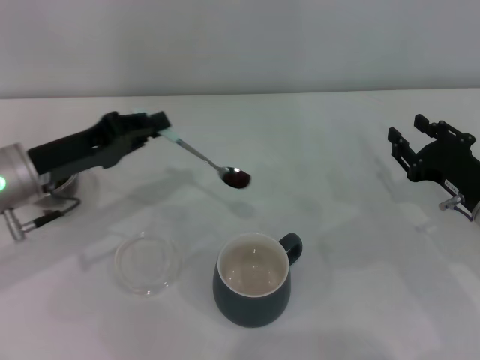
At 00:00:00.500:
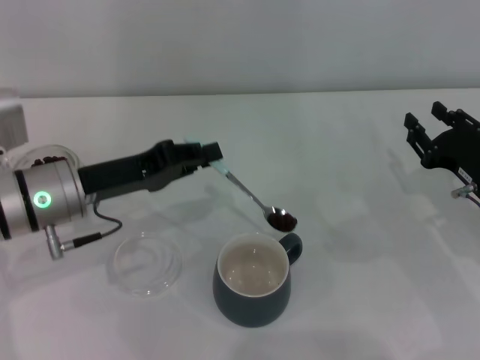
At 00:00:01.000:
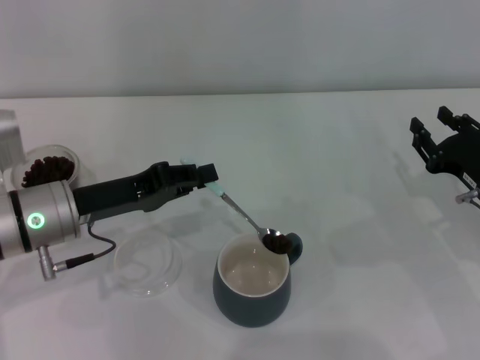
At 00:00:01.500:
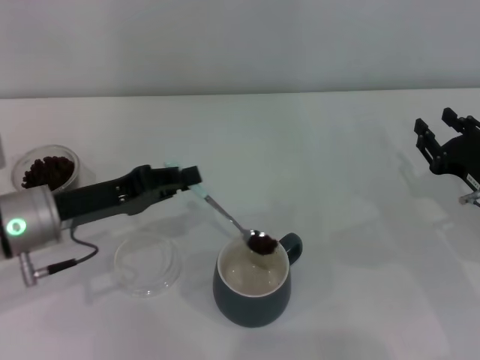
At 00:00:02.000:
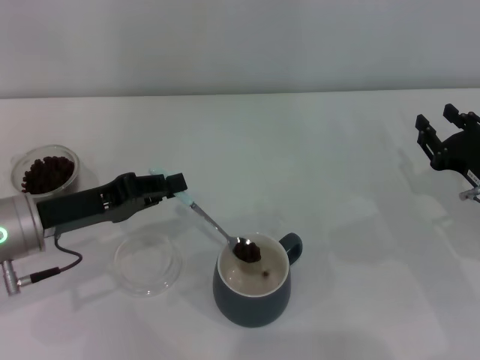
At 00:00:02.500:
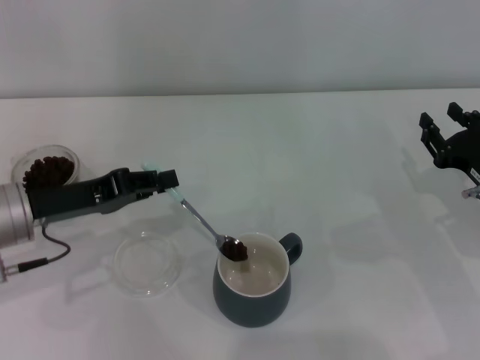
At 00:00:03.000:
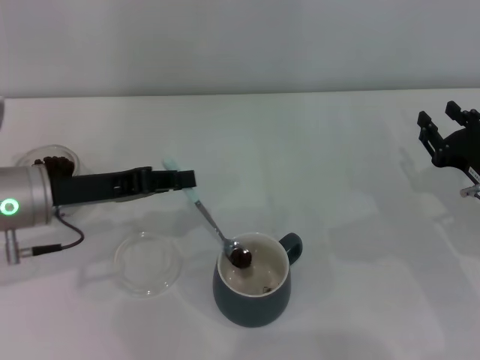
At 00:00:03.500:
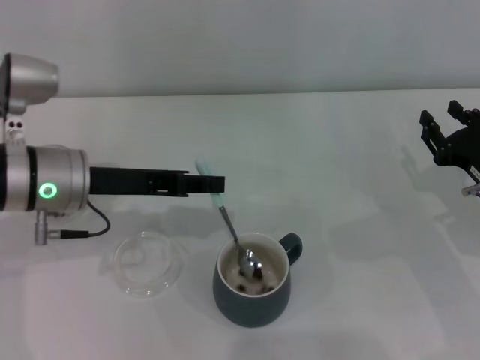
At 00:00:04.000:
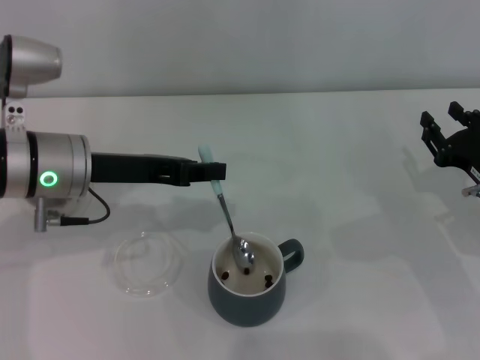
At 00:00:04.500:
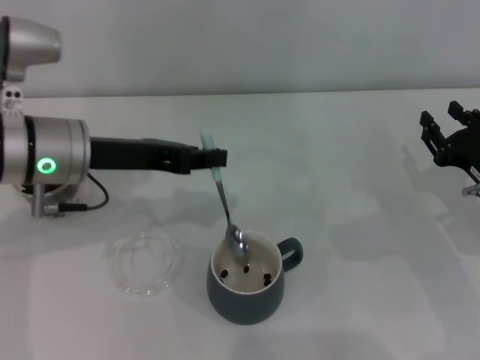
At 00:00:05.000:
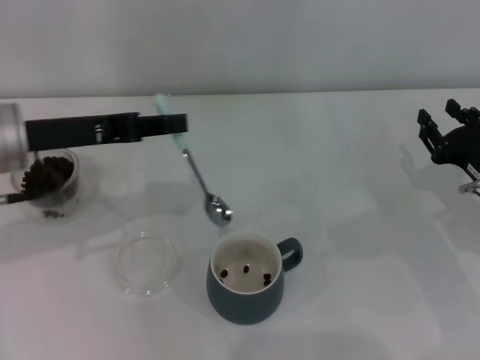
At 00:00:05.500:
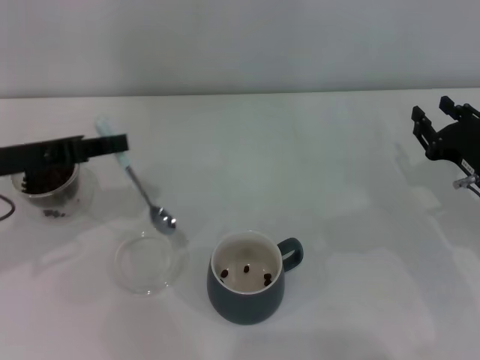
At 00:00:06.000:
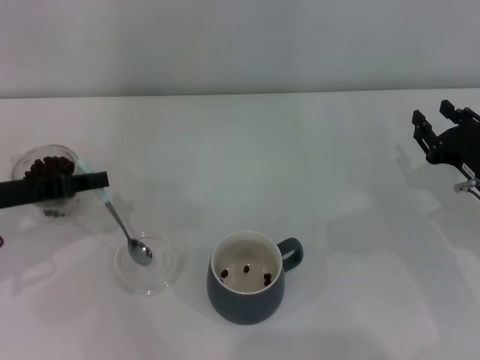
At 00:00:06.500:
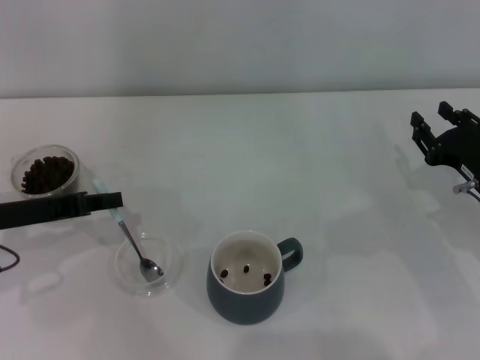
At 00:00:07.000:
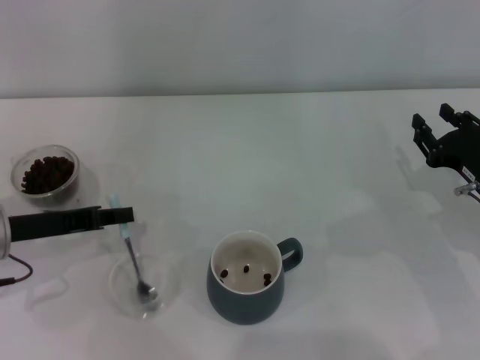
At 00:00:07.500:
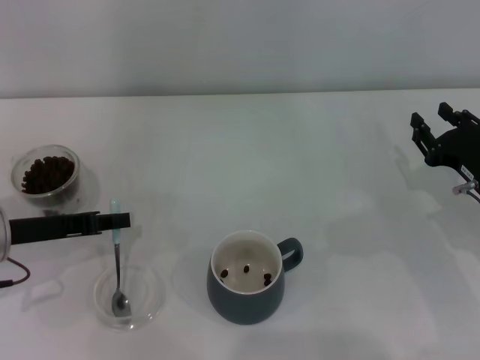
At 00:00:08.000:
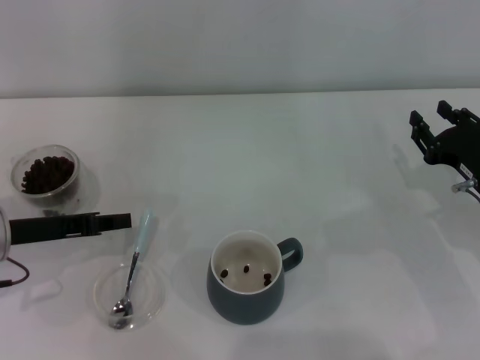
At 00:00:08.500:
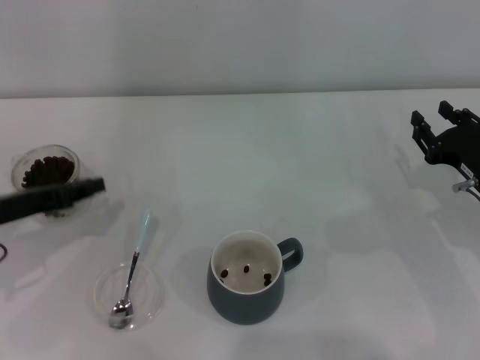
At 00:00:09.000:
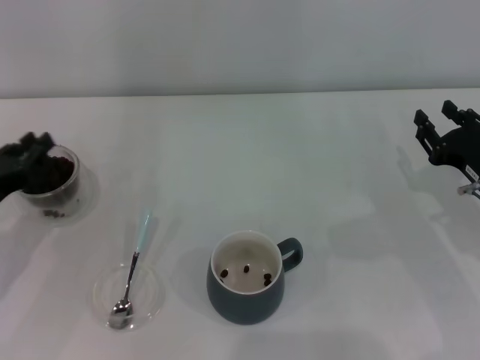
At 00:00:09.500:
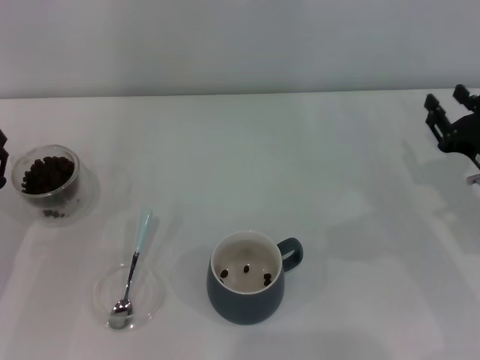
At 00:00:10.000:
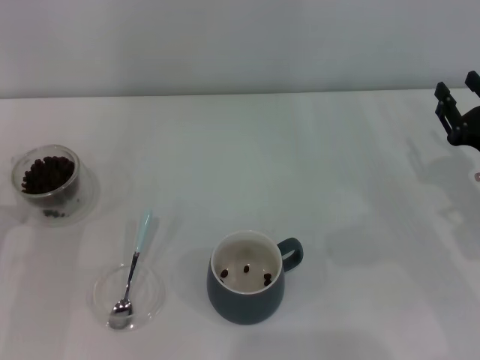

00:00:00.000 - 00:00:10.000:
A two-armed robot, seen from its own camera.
Task of the whole recording: Use a blue spoon to take out the coffee beans from the glass and pour them into the gray cup.
Step, 00:00:00.000 - 00:00:03.500: Scoop a spoonful of beans into the cup with the right gripper.
00:00:00.000 - 00:00:02.000: There are only small adjustments of the grippers.
00:00:02.000 - 00:00:04.000: The left gripper heads upward, covering some 5 cm.
00:00:04.000 - 00:00:06.000: The left gripper travels to the left by some 10 cm.
00:00:06.000 - 00:00:08.000: There are only small adjustments of the grippers.
00:00:08.000 - 00:00:10.000: The left gripper heads backward, covering about 5 cm, and opens its fingers.

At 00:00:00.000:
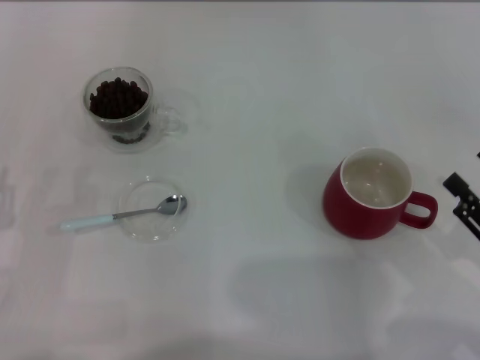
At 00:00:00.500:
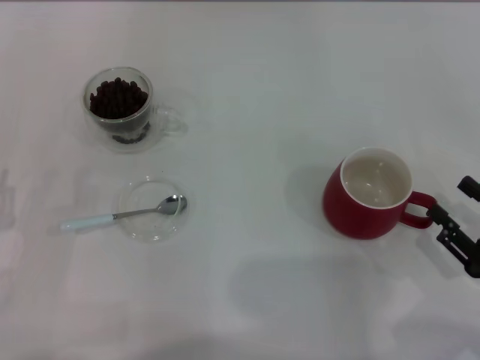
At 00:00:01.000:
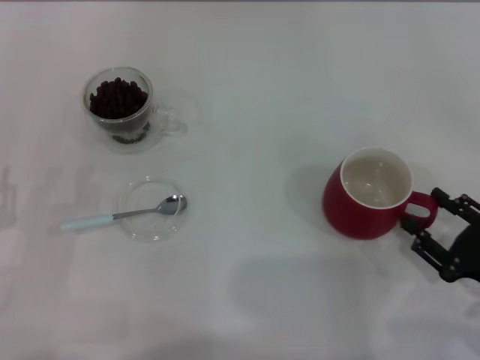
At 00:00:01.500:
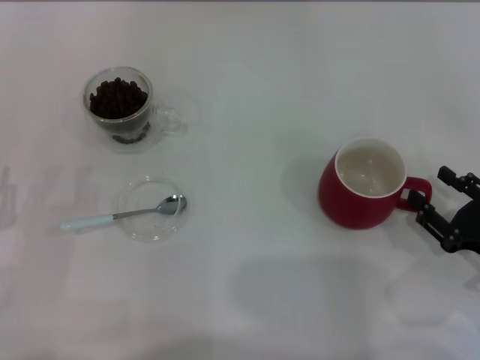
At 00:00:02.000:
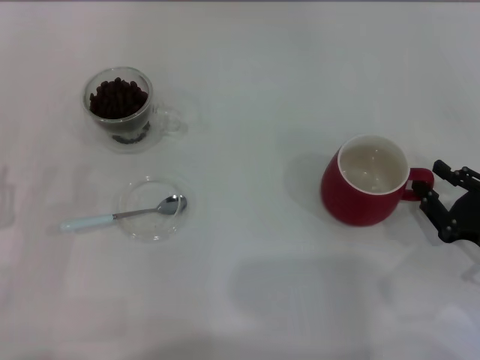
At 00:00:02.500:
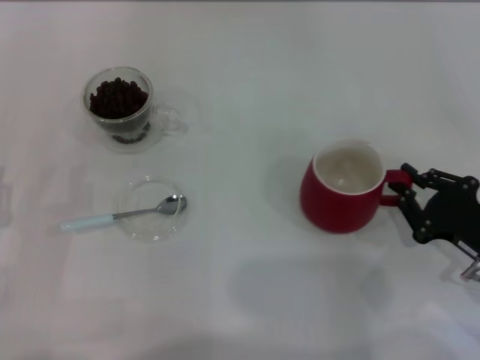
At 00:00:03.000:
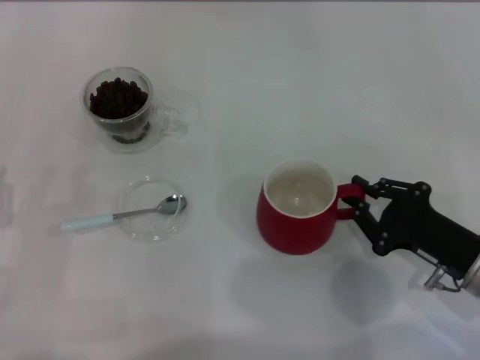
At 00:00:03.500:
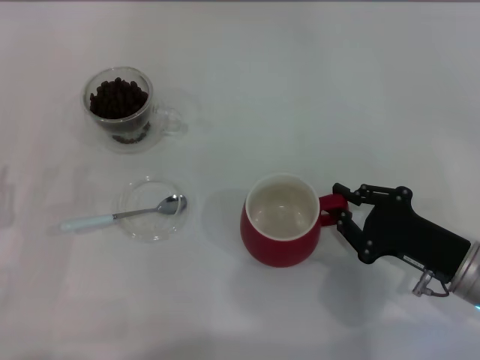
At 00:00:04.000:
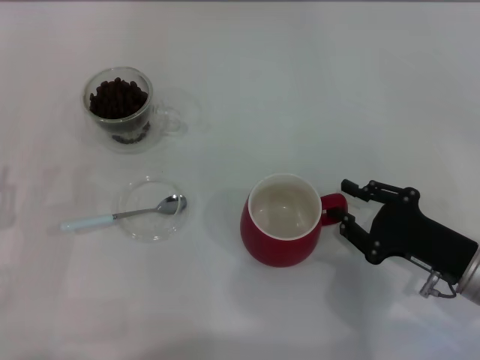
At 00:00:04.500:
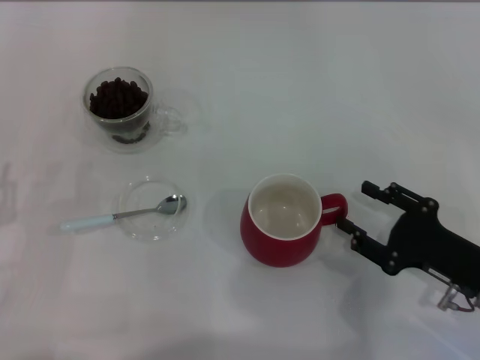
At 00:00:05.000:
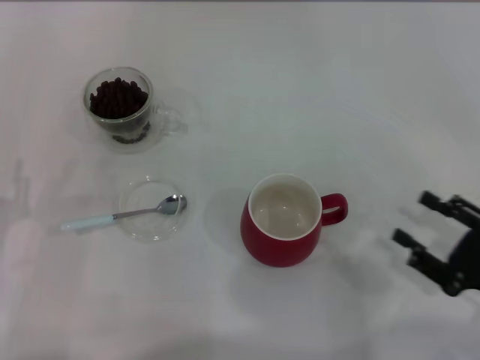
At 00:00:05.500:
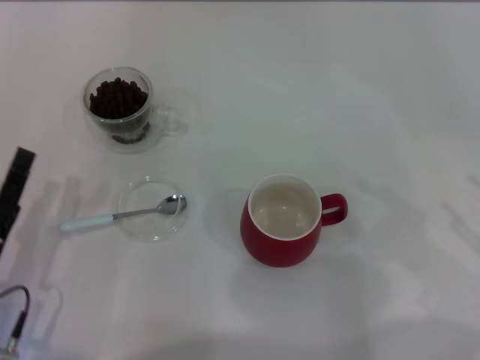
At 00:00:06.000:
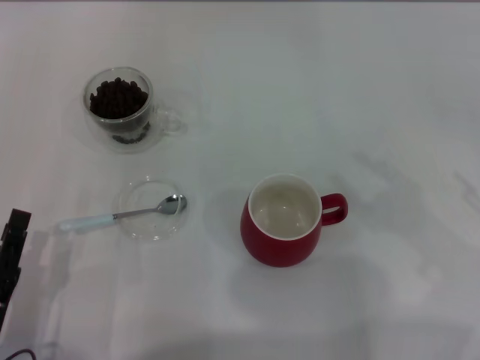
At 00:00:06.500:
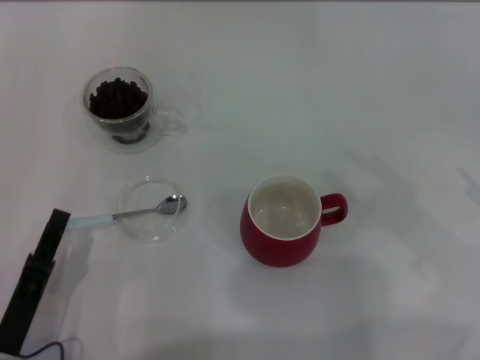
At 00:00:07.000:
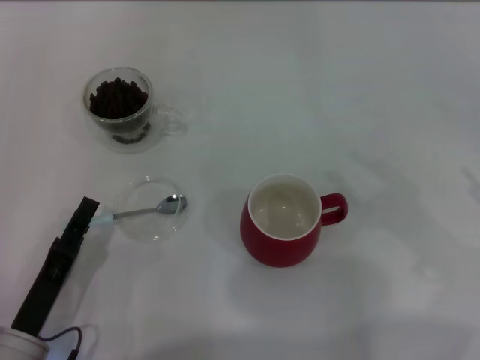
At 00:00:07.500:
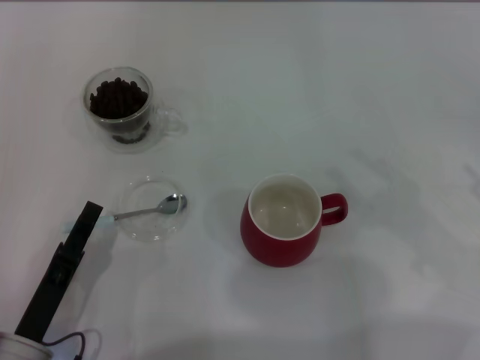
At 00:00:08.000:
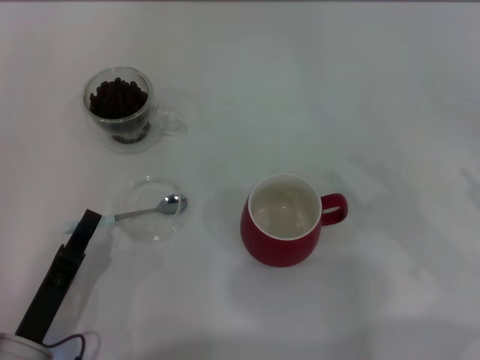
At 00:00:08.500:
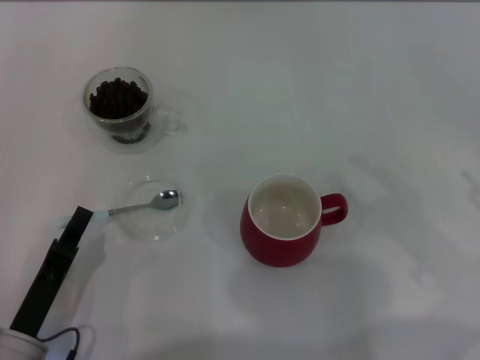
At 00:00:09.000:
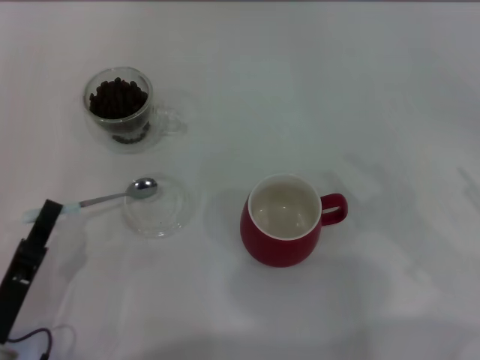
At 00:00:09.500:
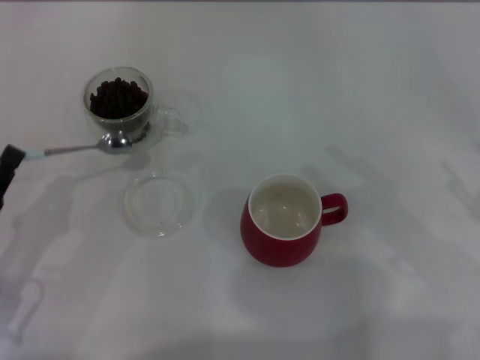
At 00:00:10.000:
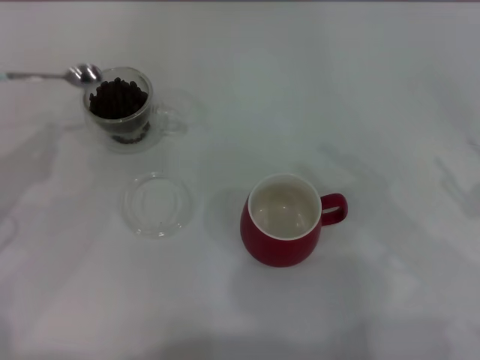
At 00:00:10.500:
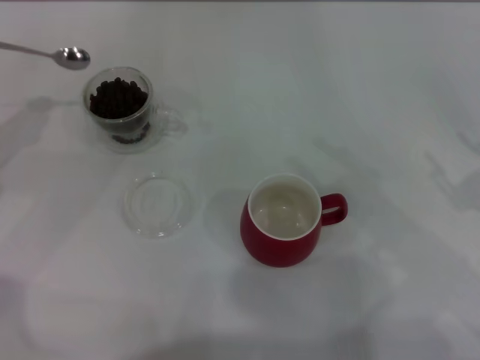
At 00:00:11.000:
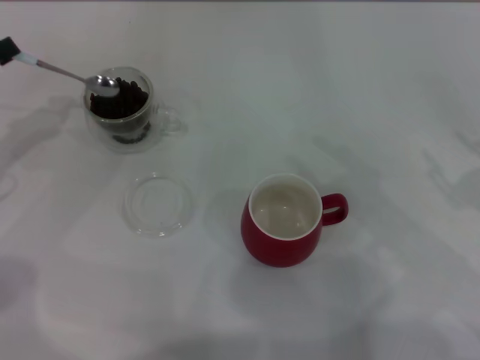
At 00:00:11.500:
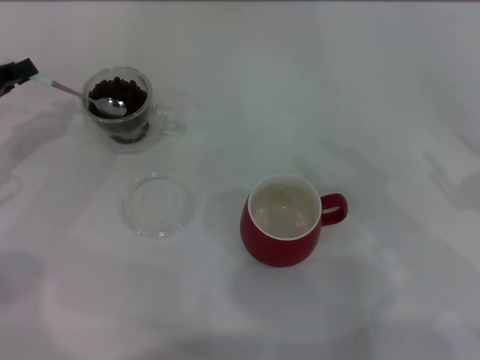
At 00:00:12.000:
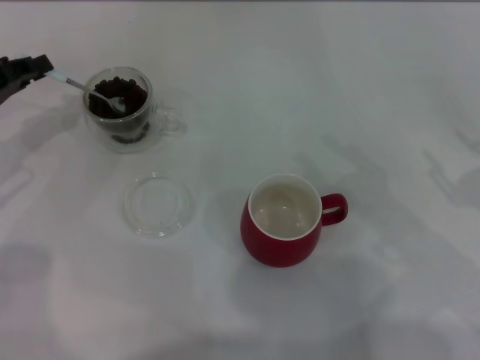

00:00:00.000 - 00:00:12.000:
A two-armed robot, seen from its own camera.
Task of the whole recording: Use a blue spoon to take out the coffee beans from the glass and pour them into the red cup.
Step, 00:00:05.000 - 00:00:09.000: Pick up the spoon with the right gripper.
00:00:00.000 - 00:00:02.000: The right gripper moves some 5 cm.
00:00:02.000 - 00:00:04.000: The right gripper shifts about 5 cm to the left, and closes.
00:00:04.000 - 00:00:06.000: The right gripper shifts approximately 15 cm to the right and upward, and opens its fingers. The left gripper travels backward and to the right by roughly 10 cm.
00:00:06.000 - 00:00:08.000: The grippers make only small movements.
00:00:08.000 - 00:00:10.000: The left gripper goes roughly 20 cm to the left, forward and upward, and closes.
00:00:10.000 - 00:00:12.000: The left gripper is displaced forward by some 10 cm.

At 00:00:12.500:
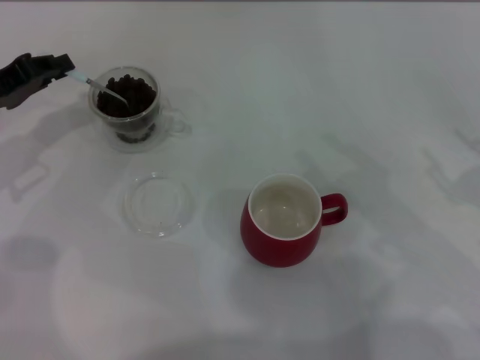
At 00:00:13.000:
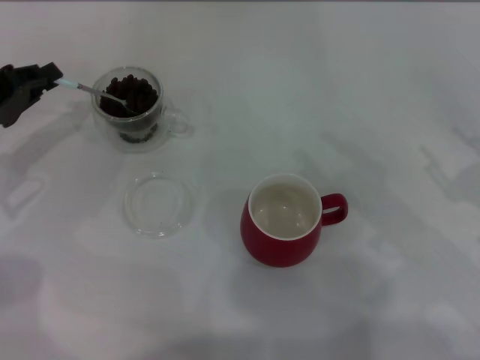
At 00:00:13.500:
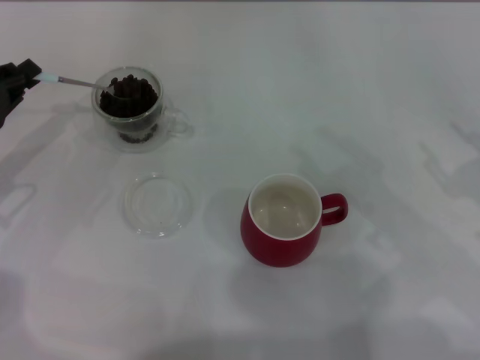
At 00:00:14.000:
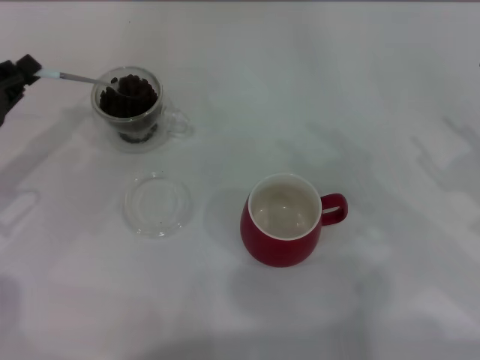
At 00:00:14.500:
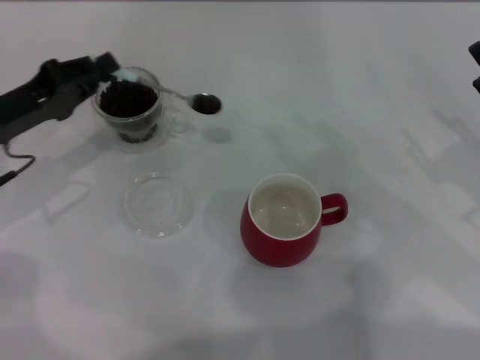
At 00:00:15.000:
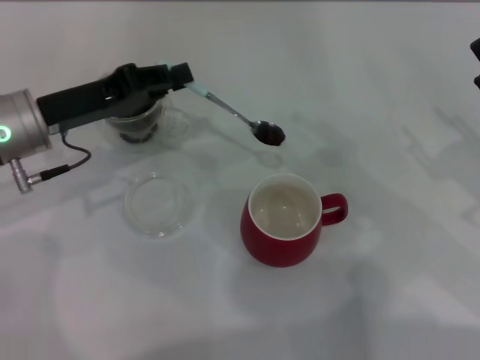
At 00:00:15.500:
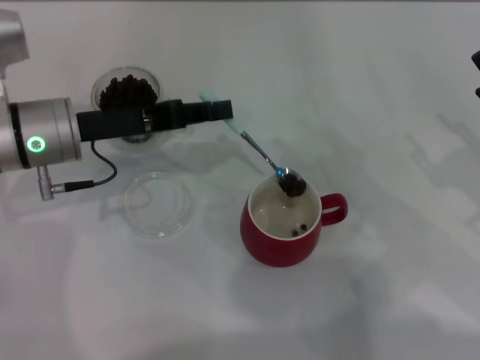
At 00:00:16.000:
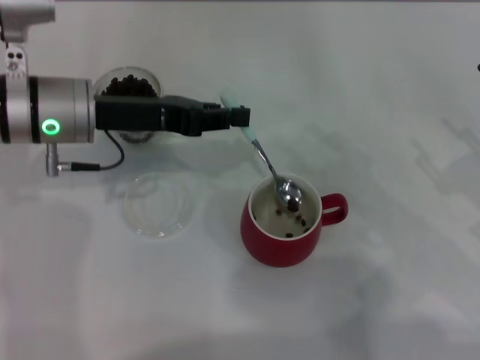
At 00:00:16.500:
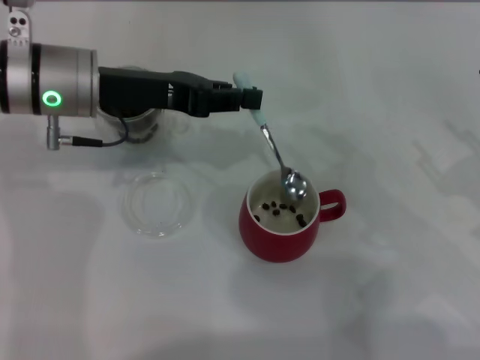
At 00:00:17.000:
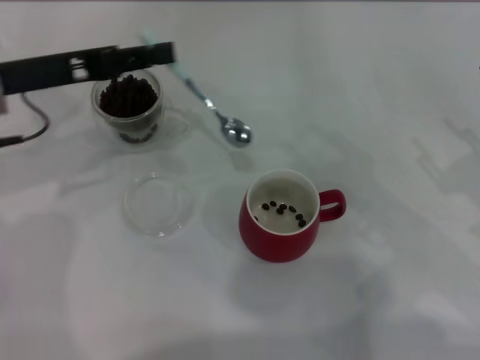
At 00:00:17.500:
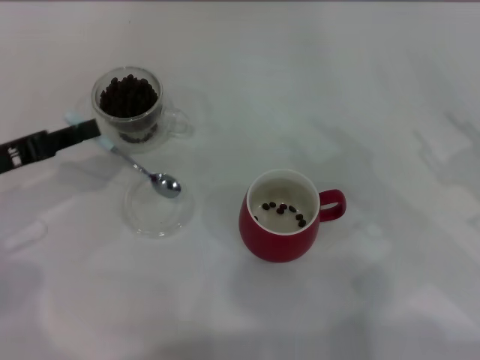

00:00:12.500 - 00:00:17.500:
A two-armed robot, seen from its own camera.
Task of the whole recording: Use a blue spoon to take out the coffee beans from the glass and pour them into the red cup.
Step, 00:00:12.500 - 00:00:16.000: Scoop a spoonful of beans into the cup with the right gripper.
00:00:12.500 - 00:00:15.000: The left gripper travels to the right by some 10 cm.
00:00:15.000 - 00:00:17.500: The left gripper travels to the left by about 10 cm.
